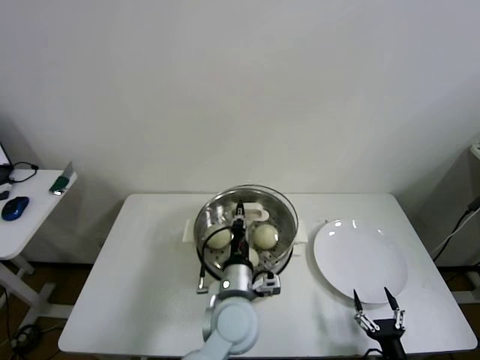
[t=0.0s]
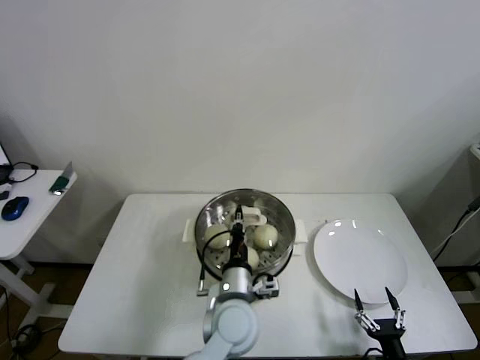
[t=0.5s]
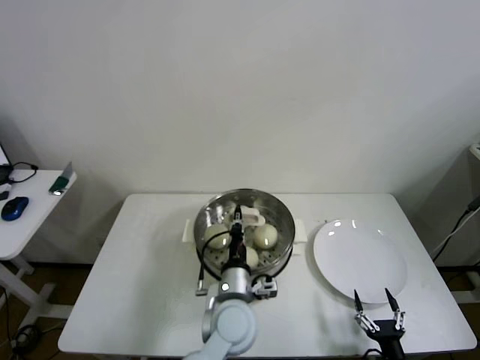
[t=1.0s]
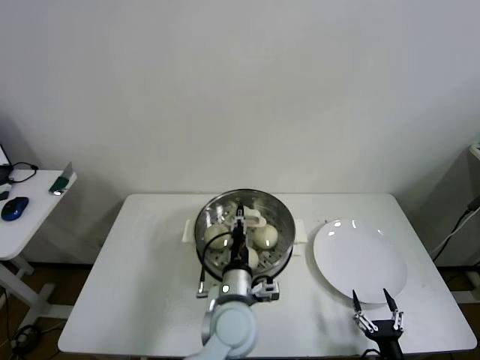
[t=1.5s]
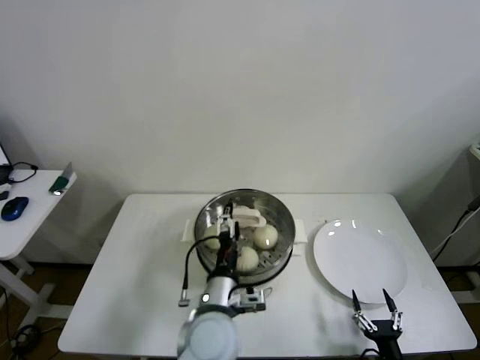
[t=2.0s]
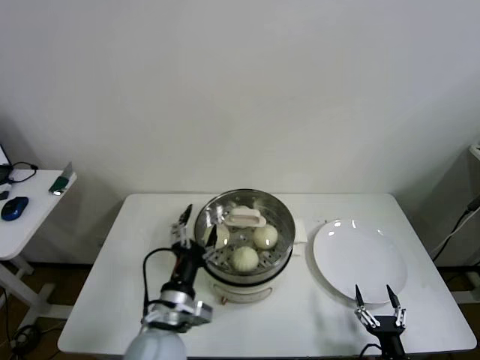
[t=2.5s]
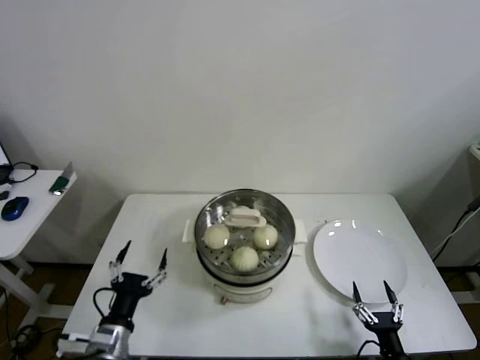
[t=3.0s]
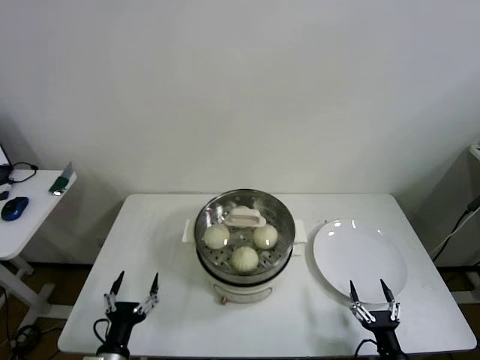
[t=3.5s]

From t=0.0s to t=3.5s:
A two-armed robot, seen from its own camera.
From t=0.0s to t=2.0s: The left gripper opens.
From t=2.0s to t=3.5s: The left gripper is displaced to the left, downward and backward by roughly 30 cm.

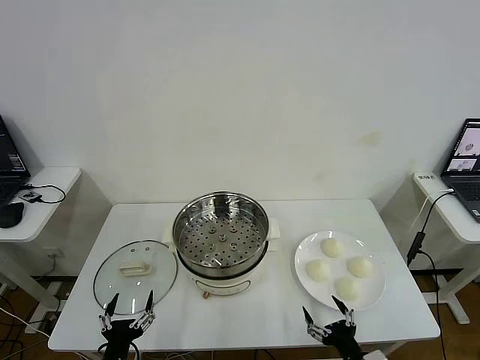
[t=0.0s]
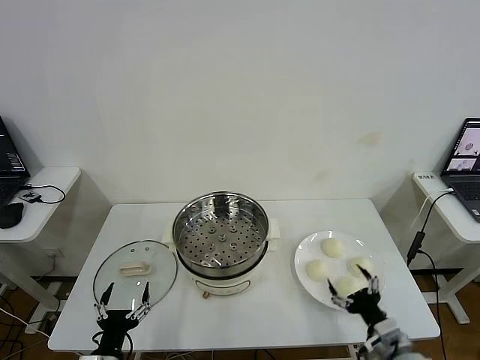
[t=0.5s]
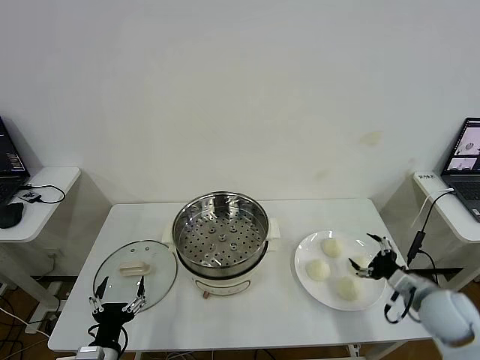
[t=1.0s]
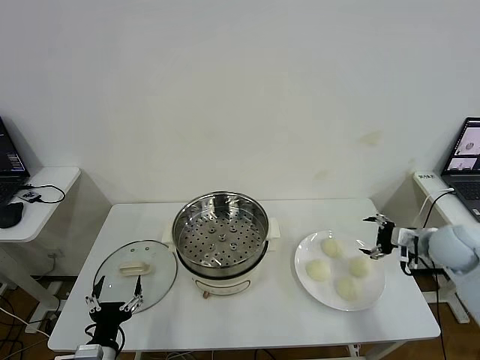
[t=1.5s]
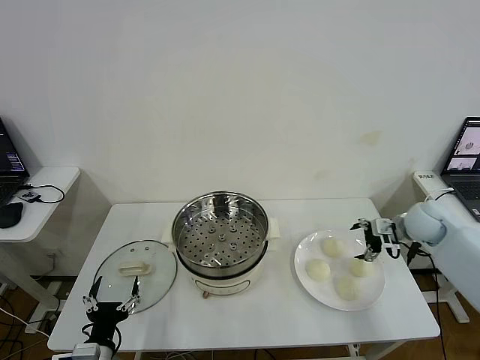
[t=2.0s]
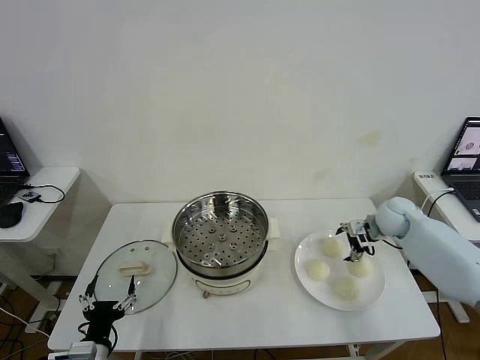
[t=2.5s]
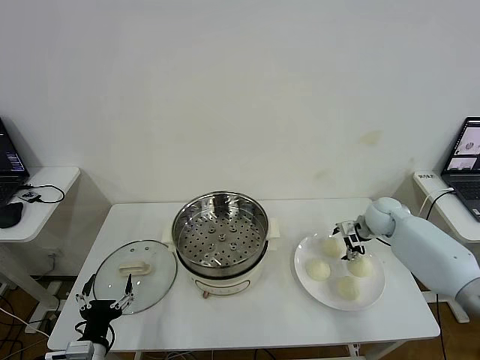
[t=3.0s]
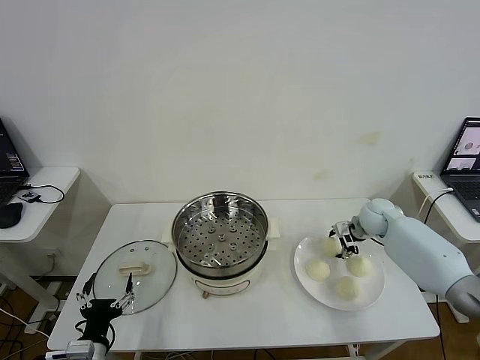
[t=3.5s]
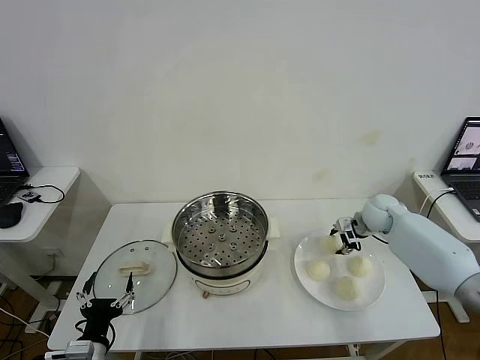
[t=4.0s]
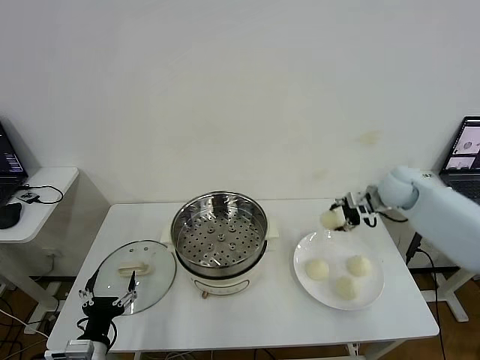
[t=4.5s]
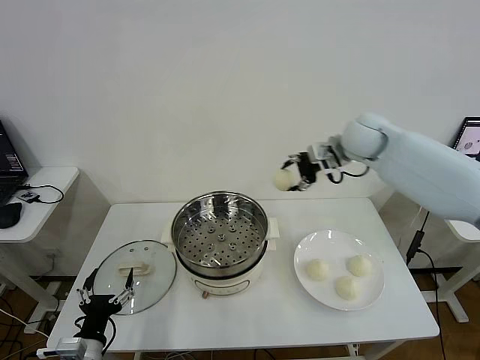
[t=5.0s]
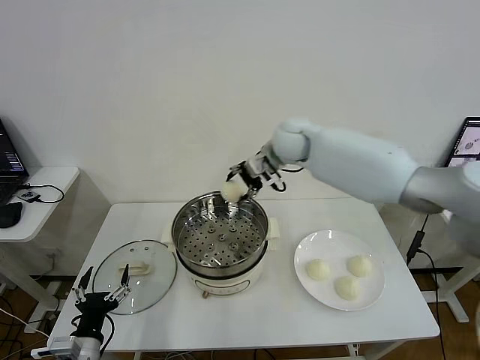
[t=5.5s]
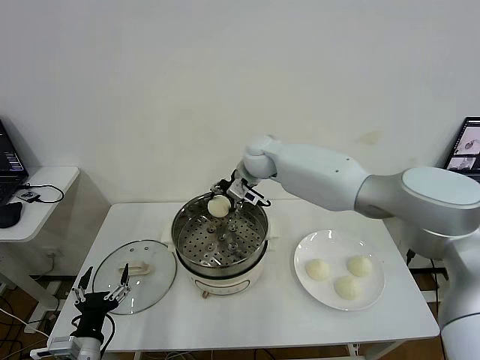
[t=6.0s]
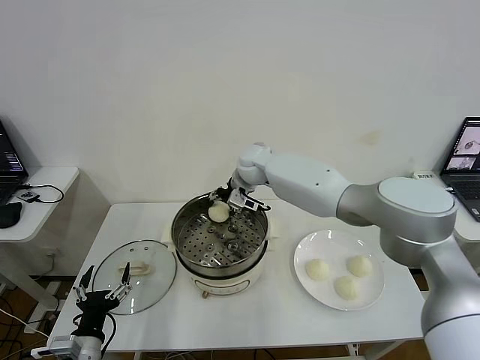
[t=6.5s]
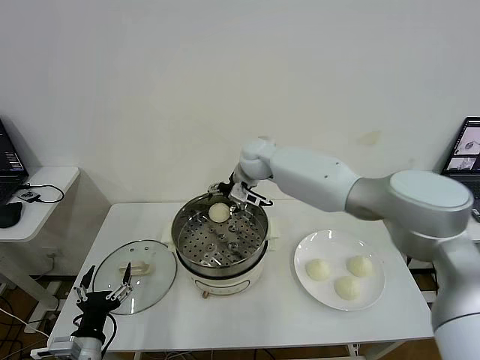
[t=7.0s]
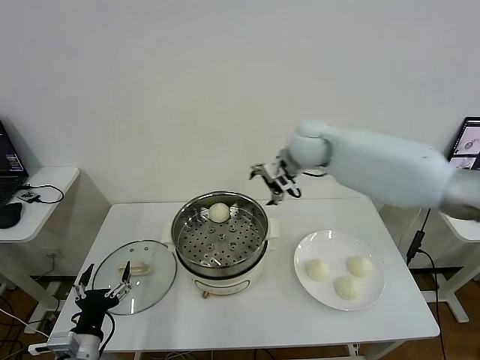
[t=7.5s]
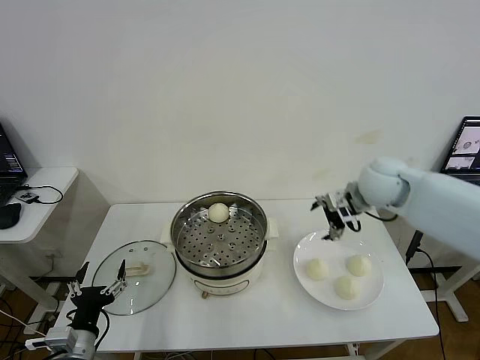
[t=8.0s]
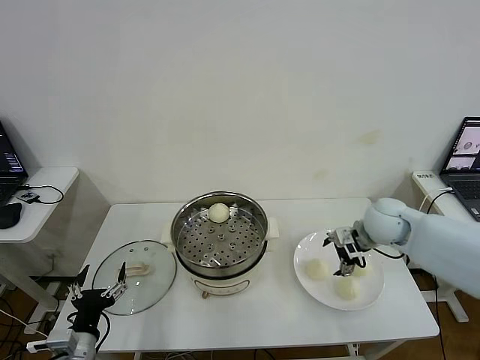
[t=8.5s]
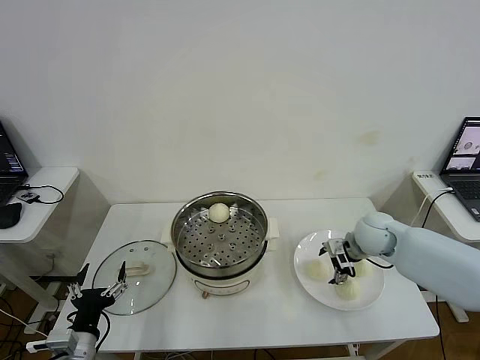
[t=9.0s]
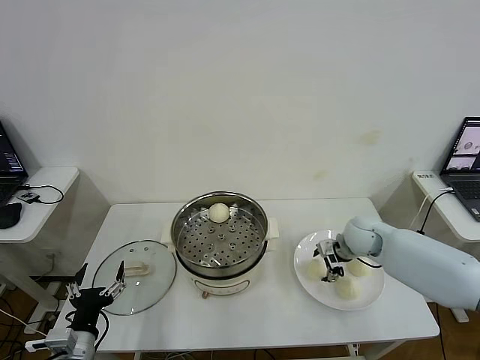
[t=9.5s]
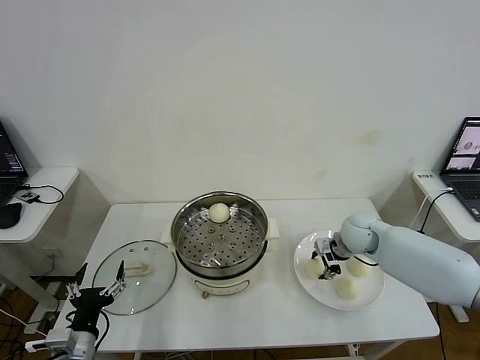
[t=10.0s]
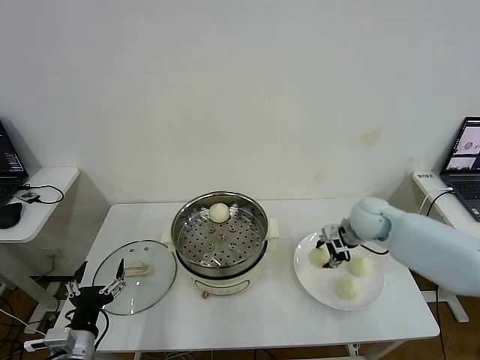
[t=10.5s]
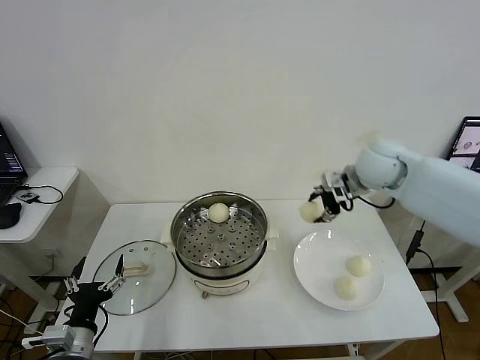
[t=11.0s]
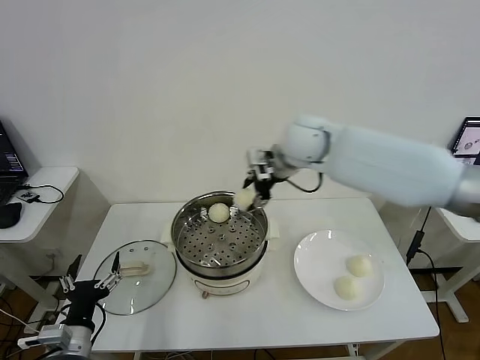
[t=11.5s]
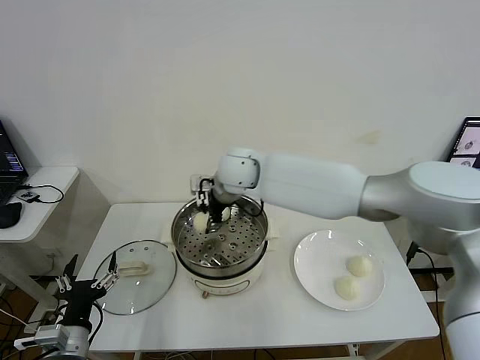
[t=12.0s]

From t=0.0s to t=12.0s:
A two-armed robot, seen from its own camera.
Step, from t=0.0s to t=3.5s: Grasp the baozi in the plate with right gripper.
Step, from t=4.0s to t=6.5s: Place the baozi on the steamer with right gripper.
Step, from t=7.0s to t=9.5s: Grasp the baozi in the plate with right gripper.
From t=2.0s to t=4.0s: The right gripper shifts some 10 cm forward and to the left, and closes up.
From t=4.0s to t=6.0s: The right gripper is displaced to the left and upward by some 35 cm.
From t=6.0s to t=8.0s: The right gripper shifts roughly 25 cm to the right and backward, and opens its fingers.
From t=8.0s to t=10.0s: The right gripper travels downward by about 15 cm, and closes its fingers.
From t=10.0s to t=12.0s: The right gripper heads to the left and upward, covering approximately 35 cm.

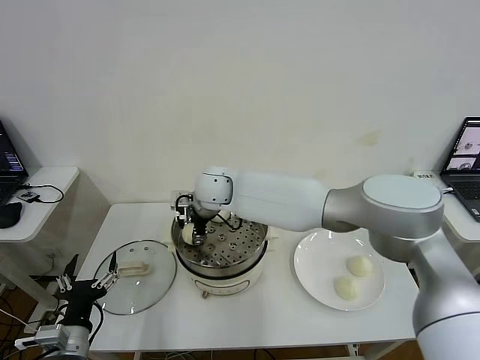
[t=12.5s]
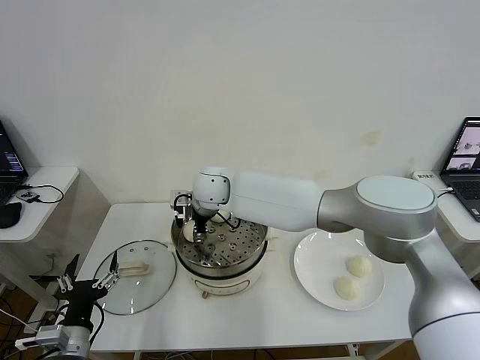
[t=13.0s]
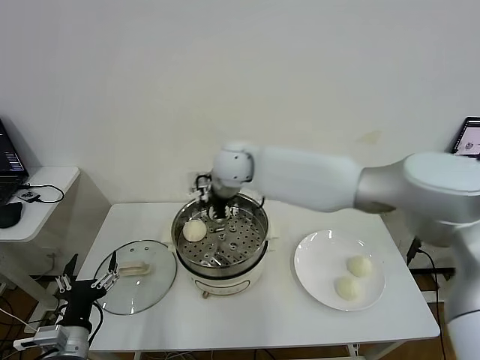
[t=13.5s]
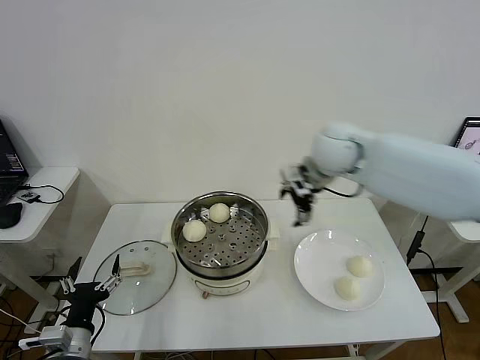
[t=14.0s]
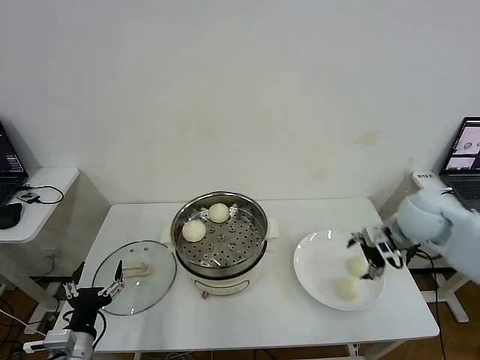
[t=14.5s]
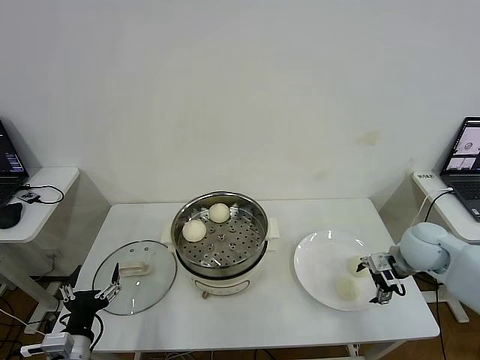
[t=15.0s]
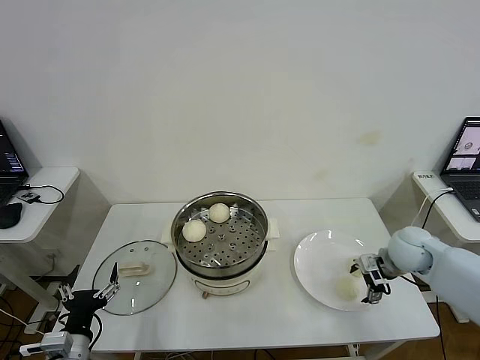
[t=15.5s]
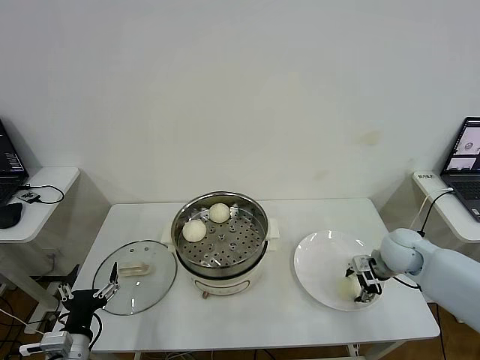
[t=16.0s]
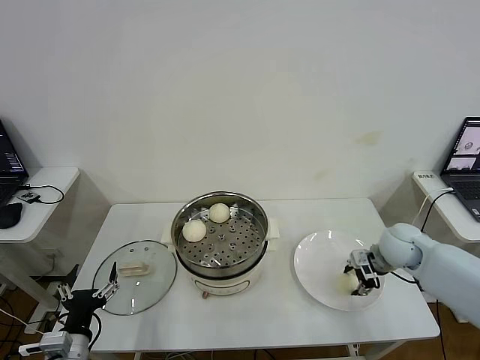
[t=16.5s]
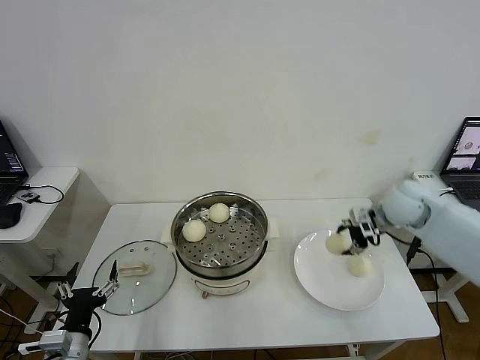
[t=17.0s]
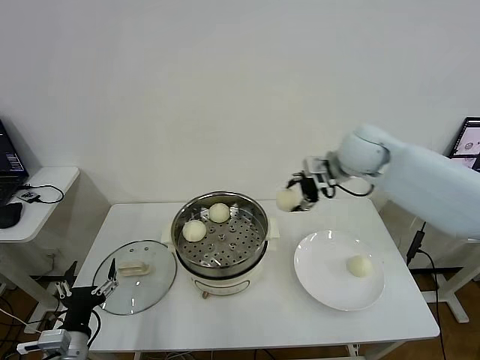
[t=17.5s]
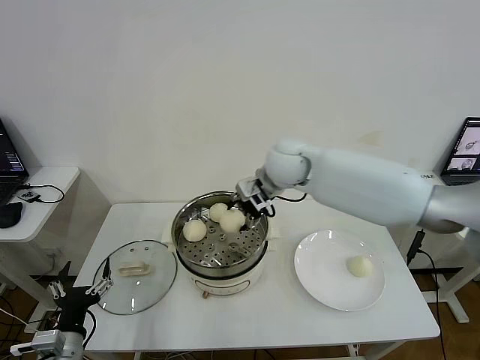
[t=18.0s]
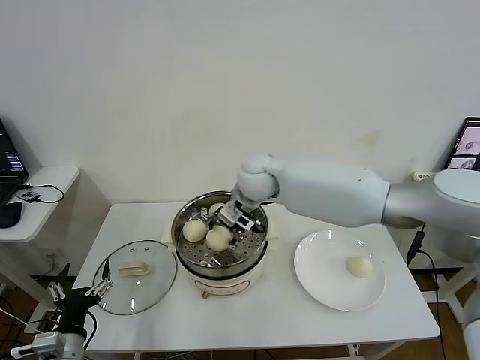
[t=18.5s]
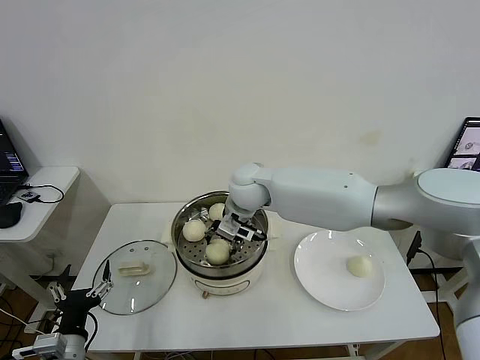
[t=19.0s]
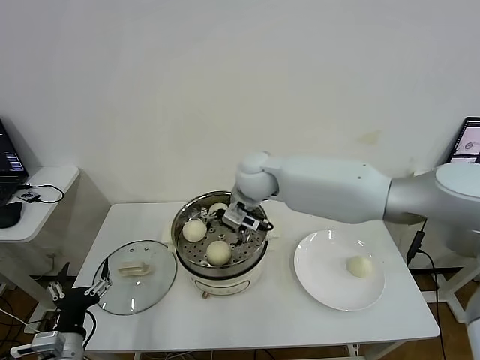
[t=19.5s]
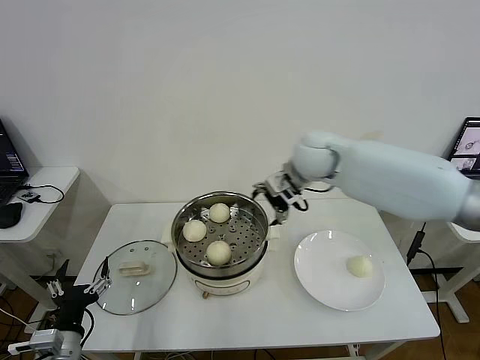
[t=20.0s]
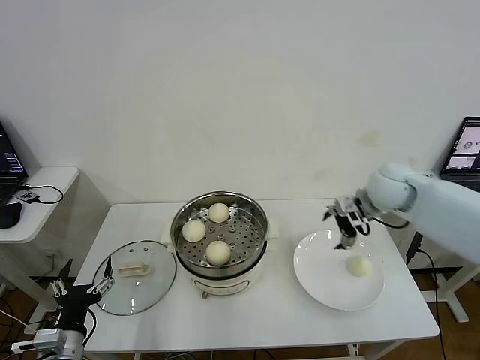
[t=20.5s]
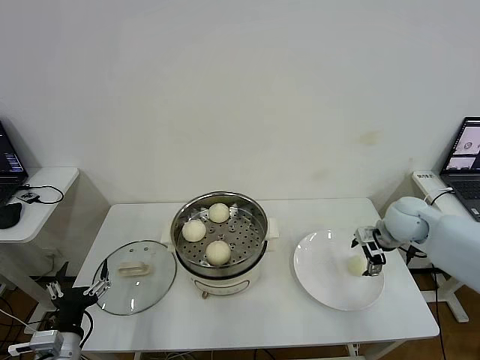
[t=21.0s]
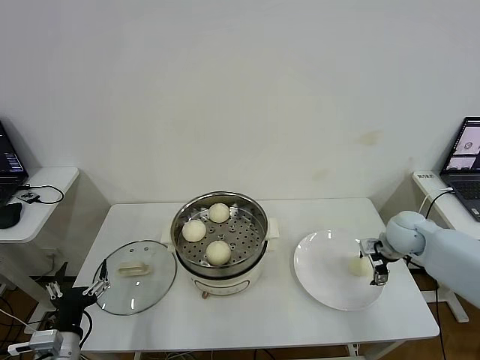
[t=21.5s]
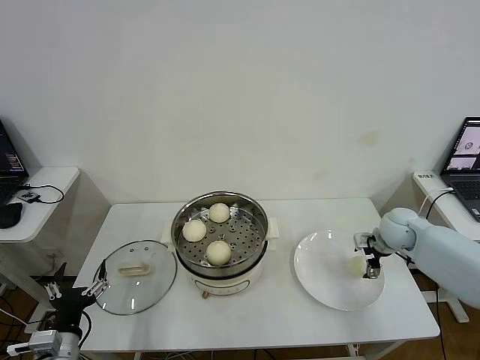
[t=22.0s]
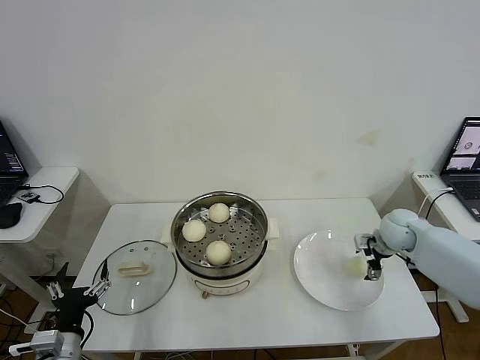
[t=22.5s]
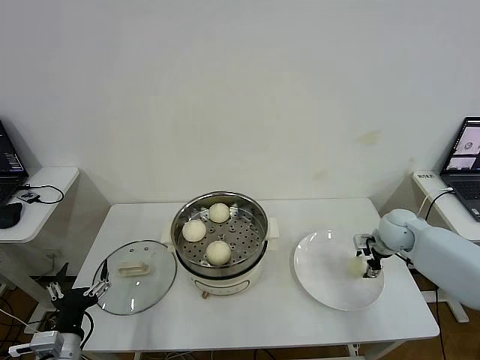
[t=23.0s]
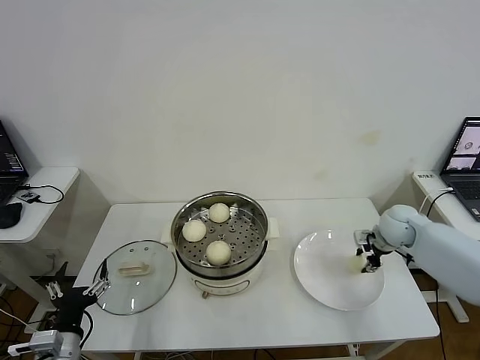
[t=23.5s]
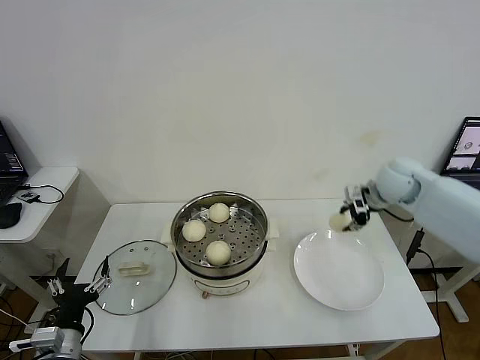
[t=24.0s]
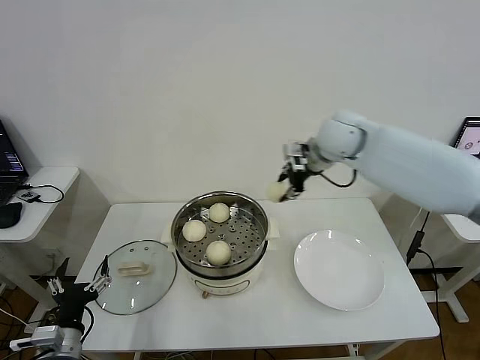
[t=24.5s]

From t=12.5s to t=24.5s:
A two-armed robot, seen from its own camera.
Step, from t=13.5s to t=16.0s: Grasp the baozi in the plate with right gripper.
Step, from t=17.0s to t=19.0s: Place the baozi on the steamer with right gripper.
Step, from t=19.5s to t=23.0s: Grasp the baozi in the plate with right gripper.
From t=12.5s to t=14.5s: The right gripper is displaced to the right by approximately 40 cm, and opens up.
From t=14.5s to t=16.5s: The right gripper moves downward, about 10 cm, and closes up.
From t=16.5s to t=18.5s: The right gripper goes roughly 35 cm to the left and upward.
From t=18.5s to t=20.5s: The right gripper moves to the right, some 30 cm, and opens its fingers.
From t=20.5s to t=22.5s: The right gripper is displaced downward and to the right by some 15 cm.
From t=22.5s to t=24.5s: The right gripper is displaced upward and to the left by approximately 30 cm, and closes up.
